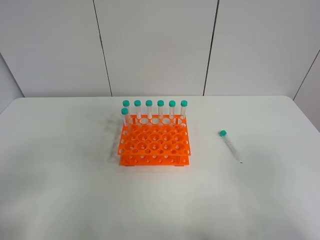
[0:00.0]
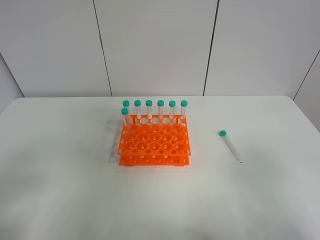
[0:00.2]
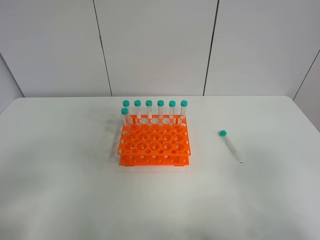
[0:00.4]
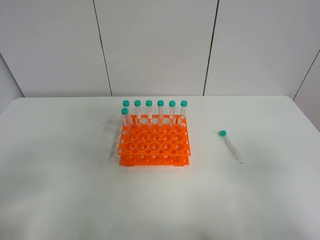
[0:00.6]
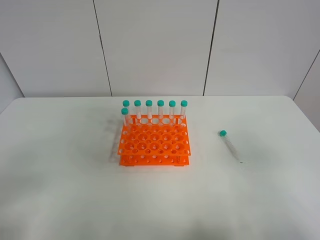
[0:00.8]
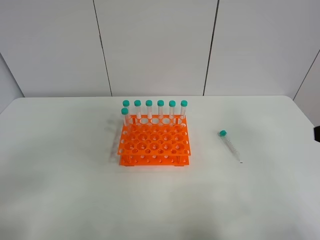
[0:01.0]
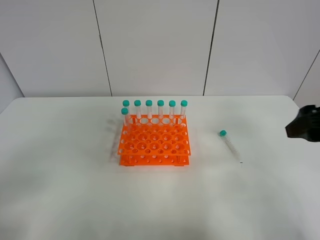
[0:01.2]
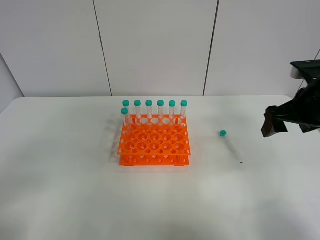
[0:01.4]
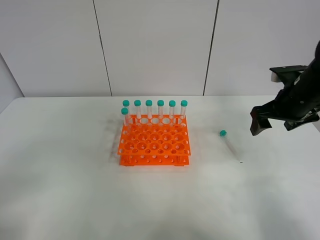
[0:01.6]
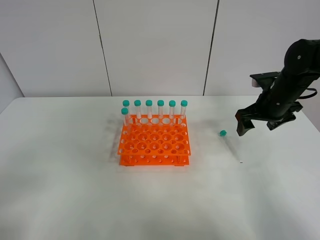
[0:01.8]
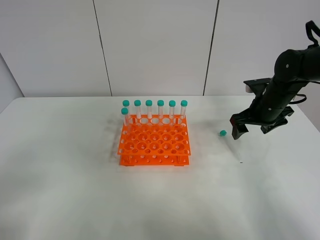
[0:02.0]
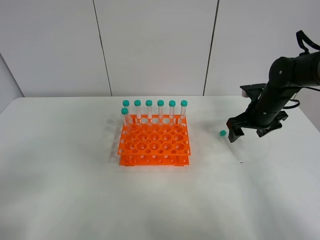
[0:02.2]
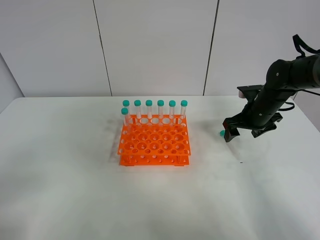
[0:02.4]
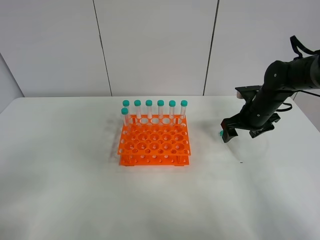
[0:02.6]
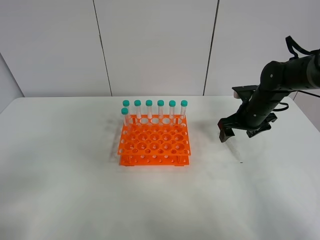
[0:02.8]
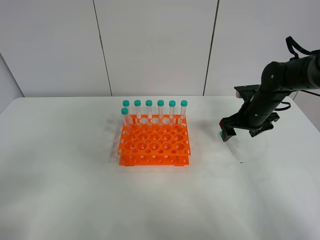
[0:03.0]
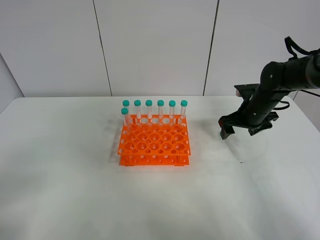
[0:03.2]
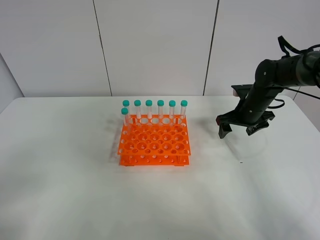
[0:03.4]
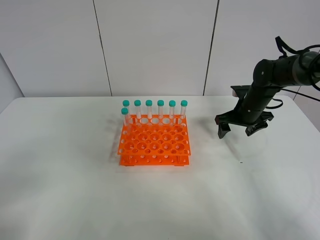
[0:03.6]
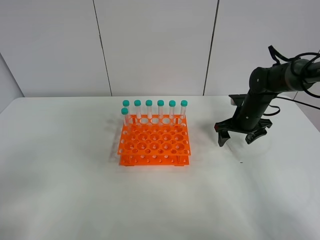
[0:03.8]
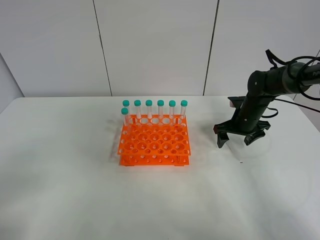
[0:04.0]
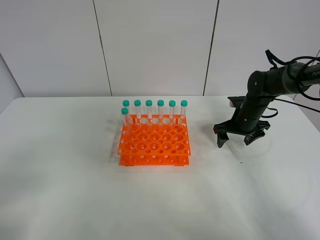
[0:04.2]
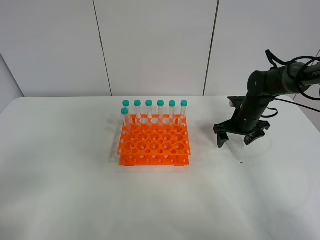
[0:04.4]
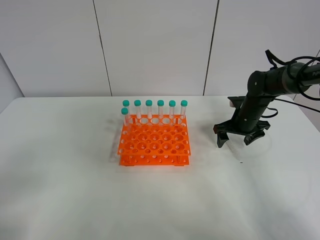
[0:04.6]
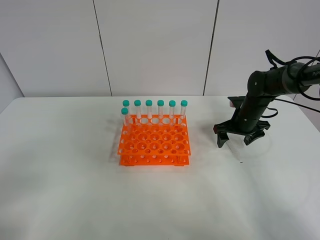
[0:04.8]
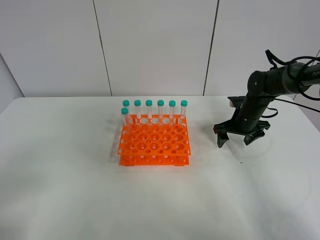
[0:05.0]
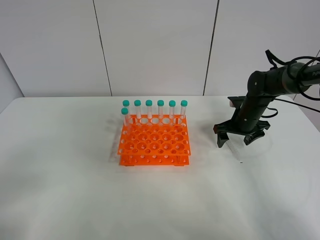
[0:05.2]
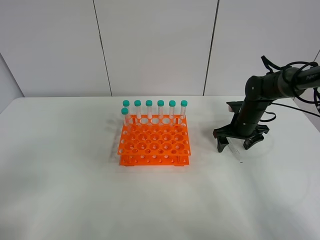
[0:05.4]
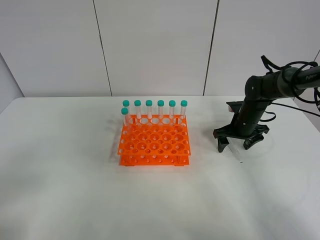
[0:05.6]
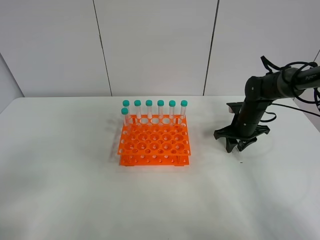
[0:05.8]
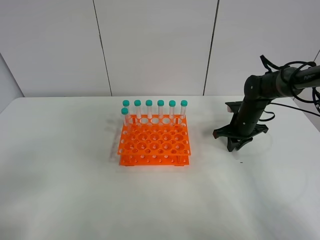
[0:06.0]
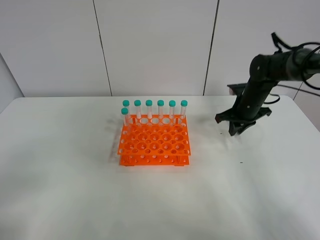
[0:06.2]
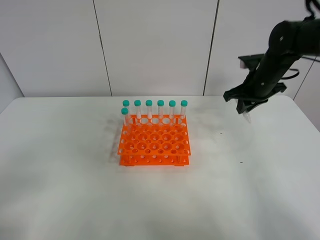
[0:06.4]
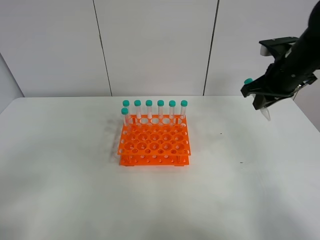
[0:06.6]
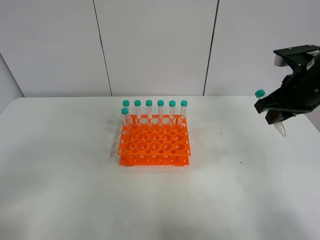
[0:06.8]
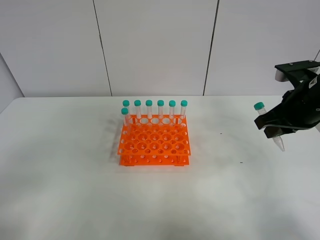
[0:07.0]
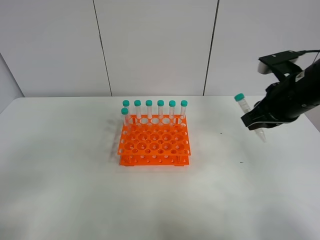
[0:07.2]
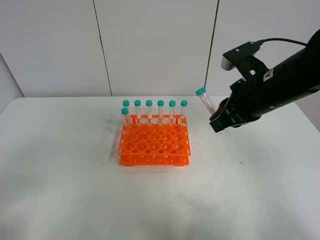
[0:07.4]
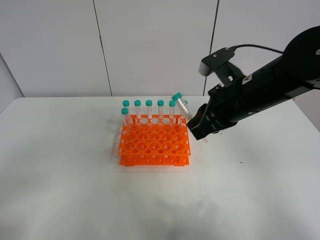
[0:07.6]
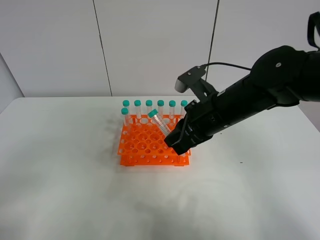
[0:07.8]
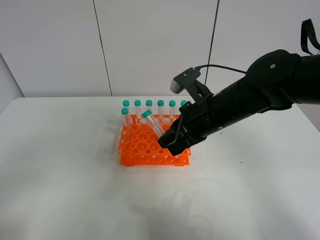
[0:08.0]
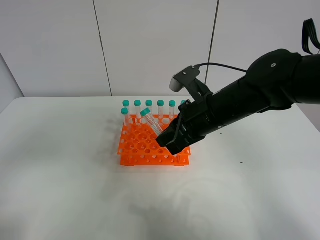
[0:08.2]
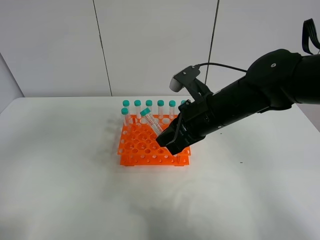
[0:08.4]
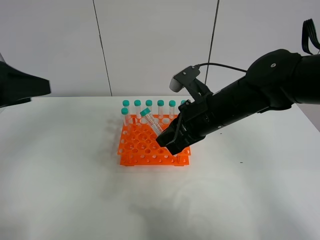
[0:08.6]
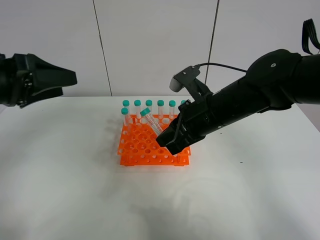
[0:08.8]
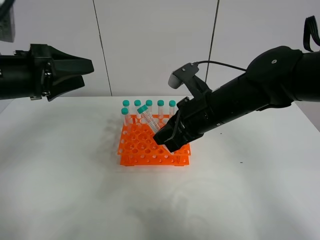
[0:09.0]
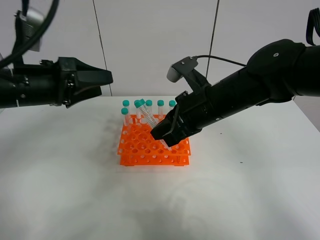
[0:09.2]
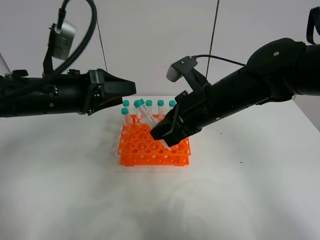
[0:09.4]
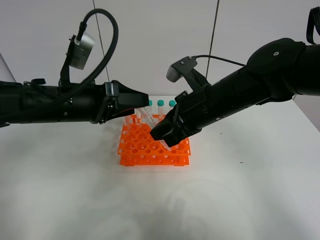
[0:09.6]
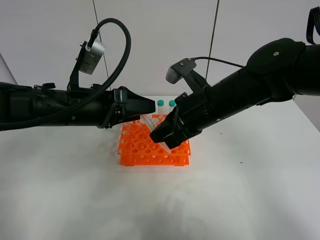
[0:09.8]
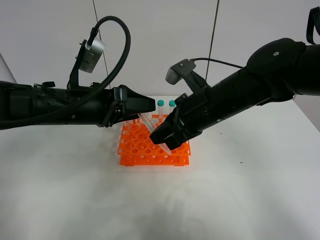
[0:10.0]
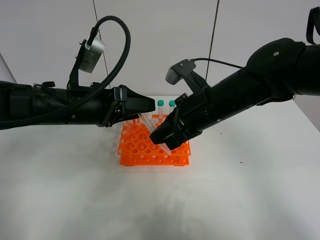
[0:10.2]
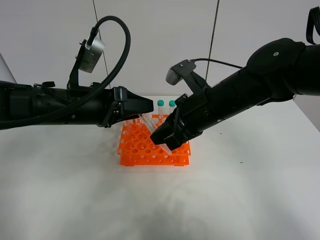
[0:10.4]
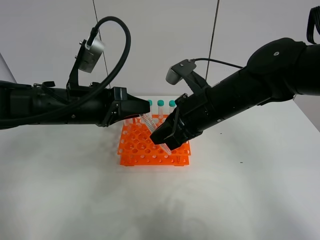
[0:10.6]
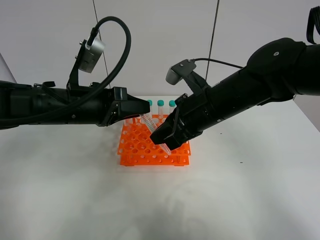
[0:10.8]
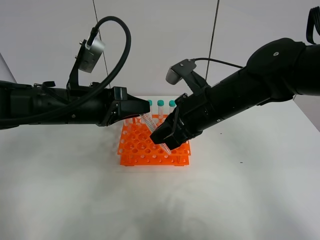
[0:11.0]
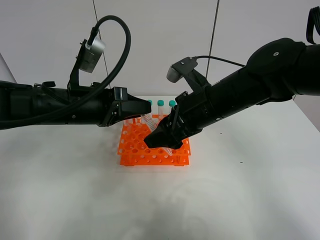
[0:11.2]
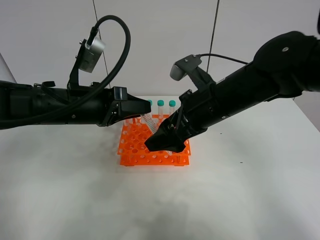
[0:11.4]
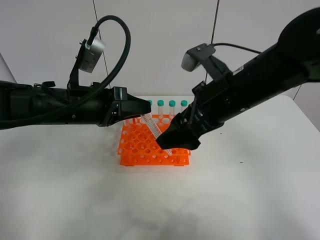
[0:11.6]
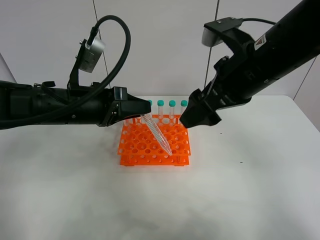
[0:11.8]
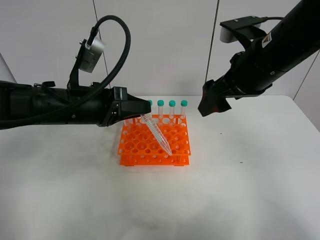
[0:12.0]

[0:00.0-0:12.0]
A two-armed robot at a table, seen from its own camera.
Task of the whole recording: Put the test tube on the table back onto the test tube rack.
Step, 0:00.0 to 0:06.0: Pick up the test tube with the right gripper.
Step, 0:06.2 to 0:11.0: Move the test tube from the right gripper to the left gripper.
0:00.0 to 0:01.6: The right gripper goes about 35 cm forward.
0:01.6 to 0:03.0: The right gripper shifts roughly 10 cm downward and forward.
0:03.0 to 0:04.4: There are only small adjustments of the grippers.
0:04.4 to 0:06.0: The right gripper closes up.
0:06.0 to 0:07.6: The right gripper heads upward, backward and to the left, covering approximately 25 cm.
0:07.6 to 0:09.0: The left gripper travels forward by some 25 cm.
0:09.0 to 0:10.4: The left gripper goes about 10 cm to the right, and closes.
0:10.4 to 0:12.0: The right gripper is displaced to the right and upward by approximately 10 cm, and opens; the left gripper closes up.

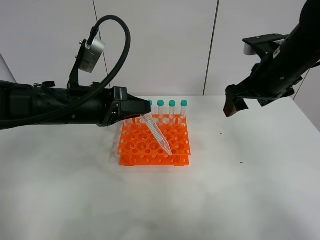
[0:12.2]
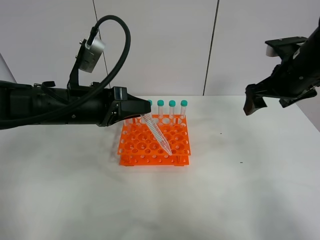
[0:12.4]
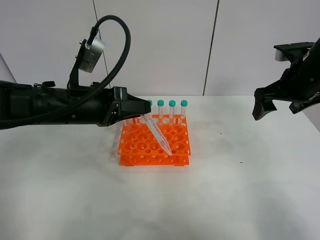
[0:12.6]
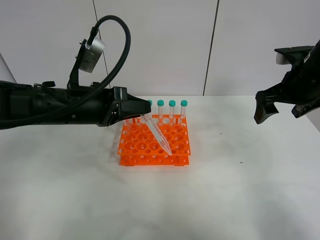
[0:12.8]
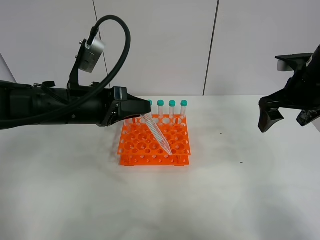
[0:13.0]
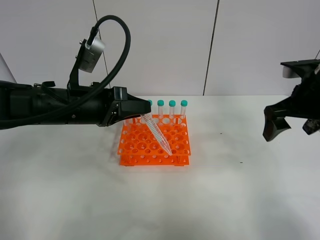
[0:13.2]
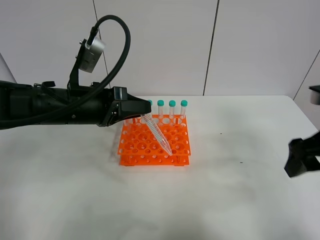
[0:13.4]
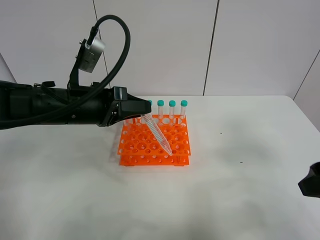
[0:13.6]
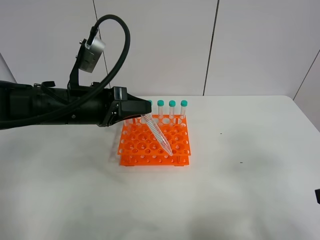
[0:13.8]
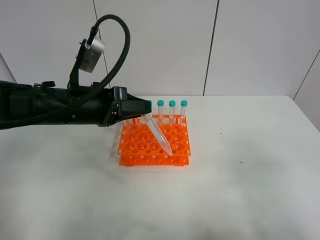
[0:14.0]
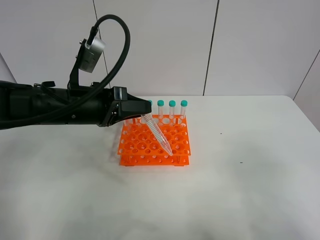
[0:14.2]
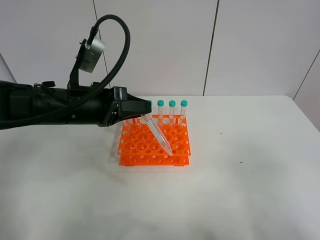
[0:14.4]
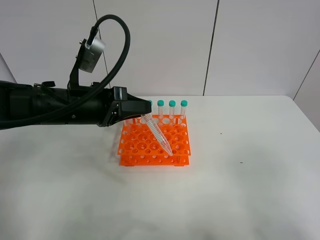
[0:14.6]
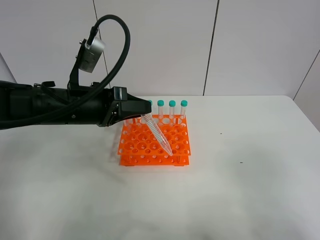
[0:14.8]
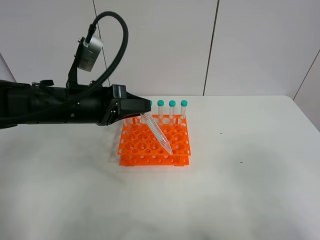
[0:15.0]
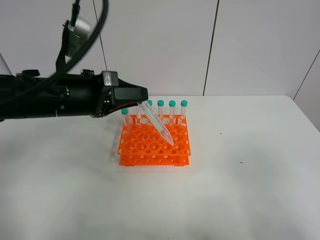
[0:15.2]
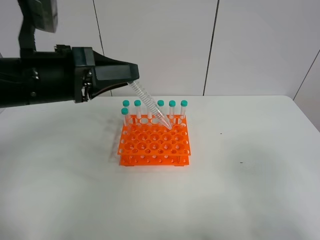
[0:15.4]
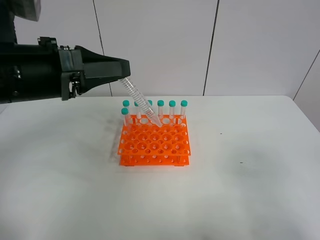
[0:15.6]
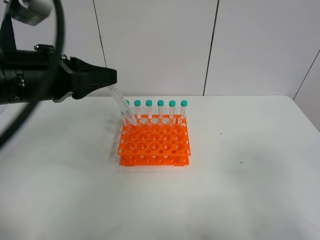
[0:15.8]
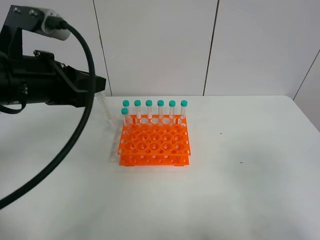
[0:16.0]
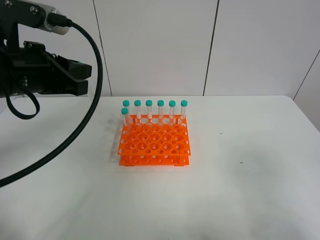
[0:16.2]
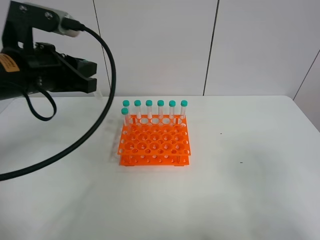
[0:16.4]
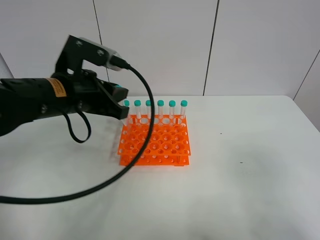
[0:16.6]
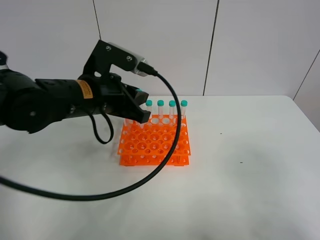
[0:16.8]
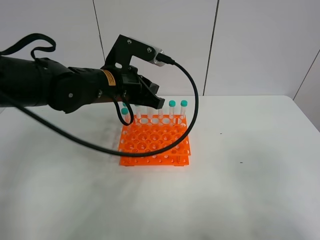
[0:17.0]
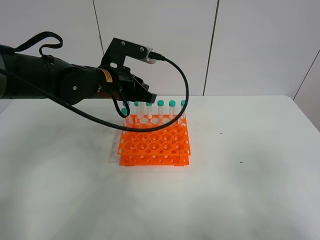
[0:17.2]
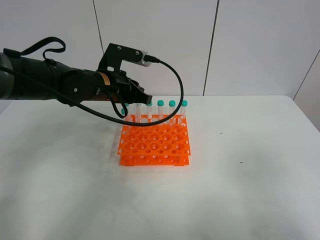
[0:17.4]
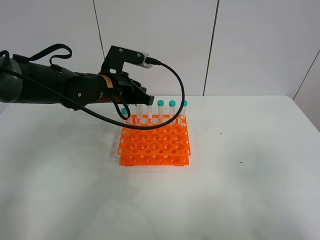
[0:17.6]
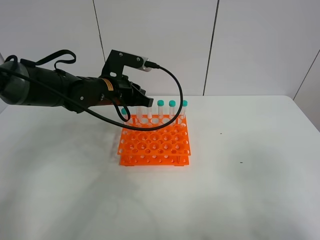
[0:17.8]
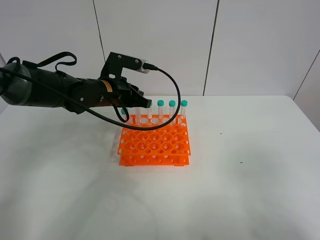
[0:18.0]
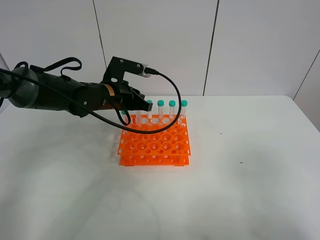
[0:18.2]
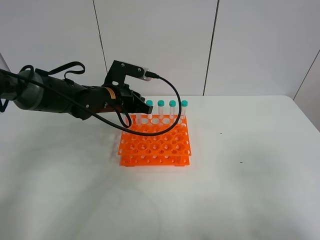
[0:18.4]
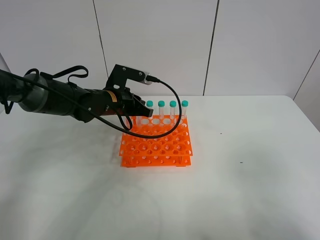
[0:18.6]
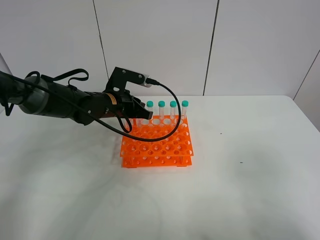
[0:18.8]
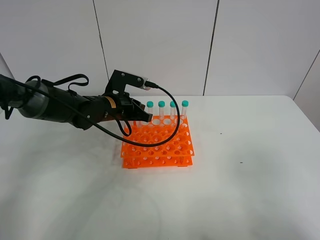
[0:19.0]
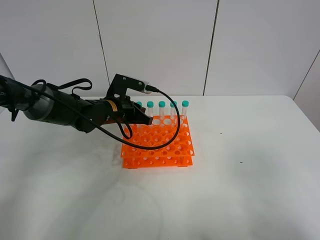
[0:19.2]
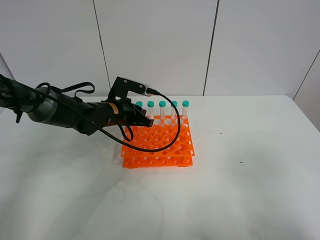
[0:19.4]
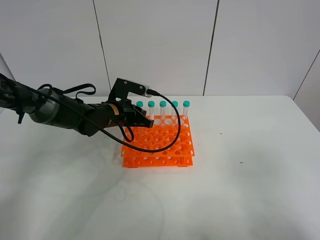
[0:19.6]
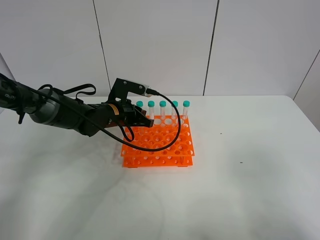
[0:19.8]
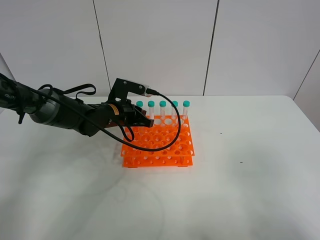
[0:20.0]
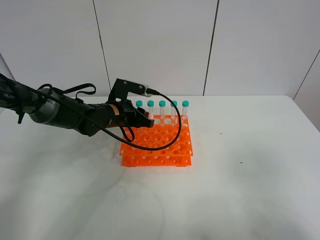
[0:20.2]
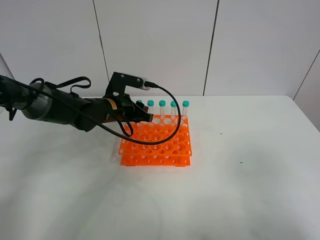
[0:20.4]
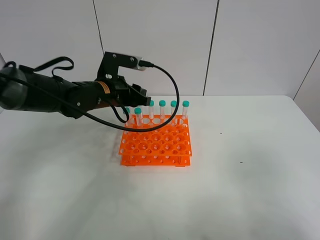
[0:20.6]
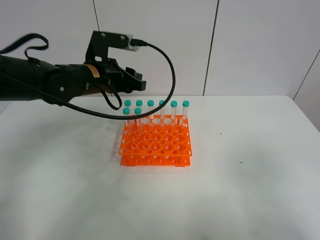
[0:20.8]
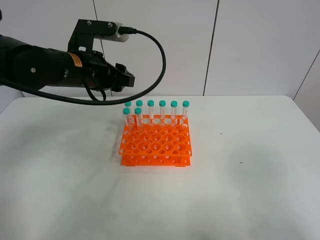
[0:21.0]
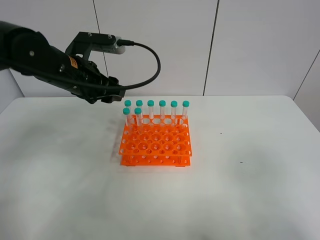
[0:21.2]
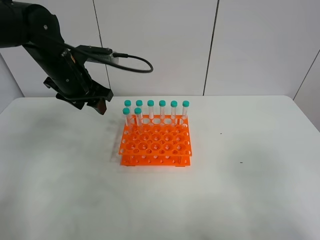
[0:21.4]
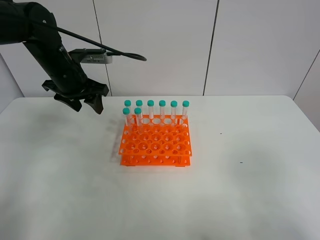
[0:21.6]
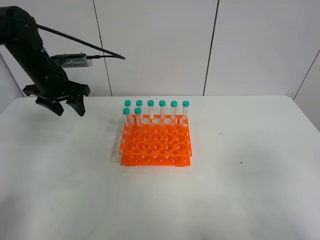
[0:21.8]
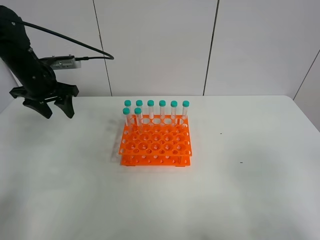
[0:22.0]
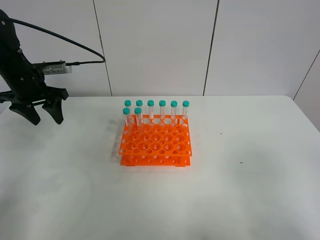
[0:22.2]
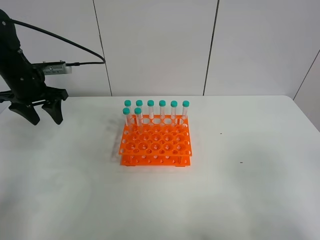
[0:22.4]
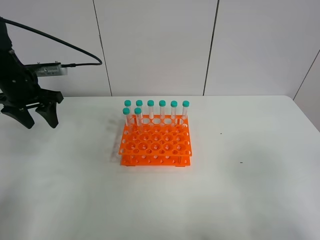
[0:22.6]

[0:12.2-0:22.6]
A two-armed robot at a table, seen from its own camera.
Task of the whole recording: Put the test tube on the table back onto the test tube rack.
Step, 0:12.2 to 0:20.2: Place the test tube on the test tube rack with the left gripper.
0:12.2 to 0:13.6: The right gripper travels backward by some 20 cm.
0:13.6 to 0:15.2: The right gripper travels backward by about 10 cm.
0:16.6 to 0:18.2: The left gripper is displaced forward and downward by about 15 cm.
0:18.2 to 0:19.6: The left gripper heads downward, covering roughly 5 cm.
0:19.6 to 0:21.2: The left gripper goes approximately 15 cm upward, and opens up.
0:21.2 to 0:22.6: The left gripper travels to the left by some 15 cm.
